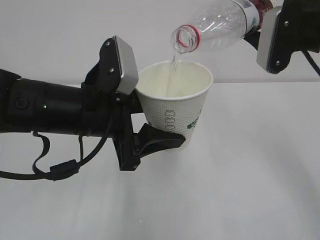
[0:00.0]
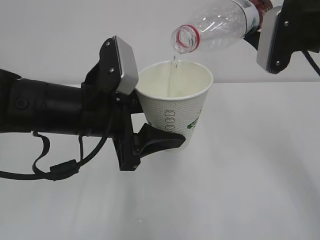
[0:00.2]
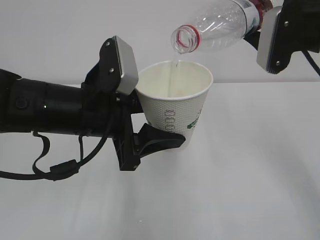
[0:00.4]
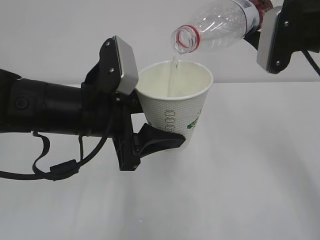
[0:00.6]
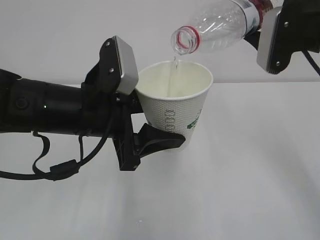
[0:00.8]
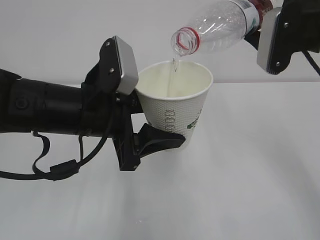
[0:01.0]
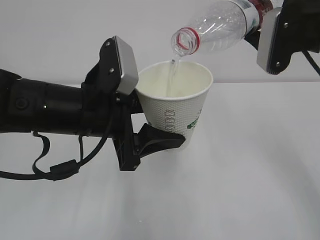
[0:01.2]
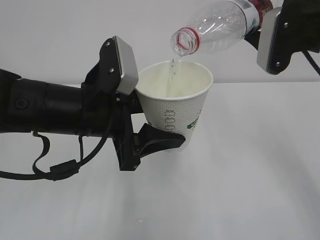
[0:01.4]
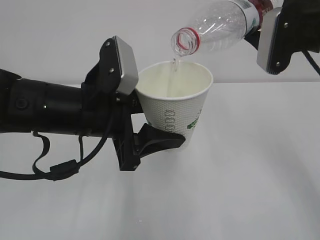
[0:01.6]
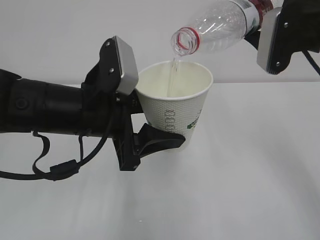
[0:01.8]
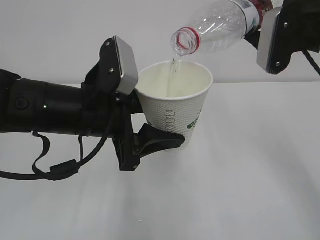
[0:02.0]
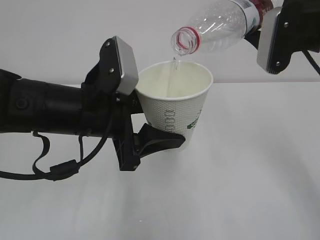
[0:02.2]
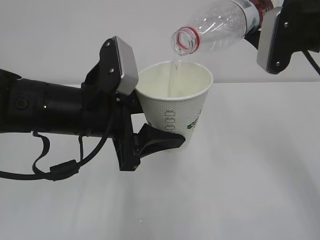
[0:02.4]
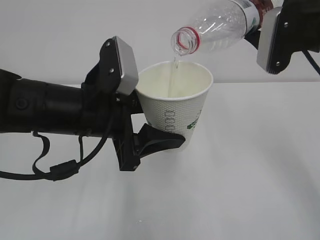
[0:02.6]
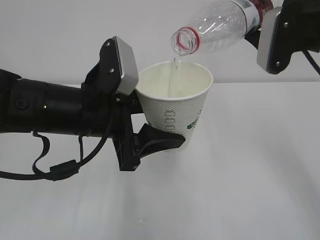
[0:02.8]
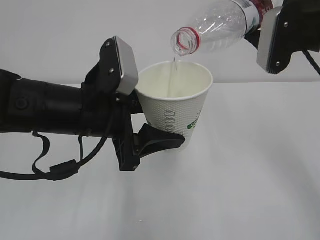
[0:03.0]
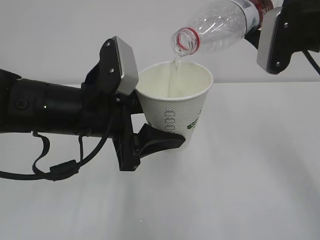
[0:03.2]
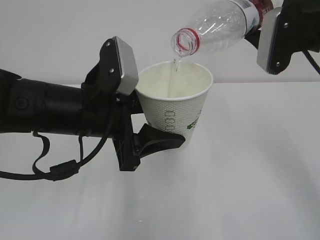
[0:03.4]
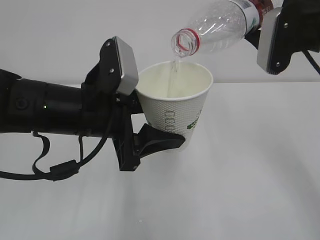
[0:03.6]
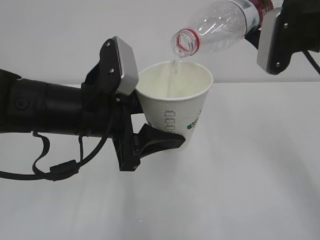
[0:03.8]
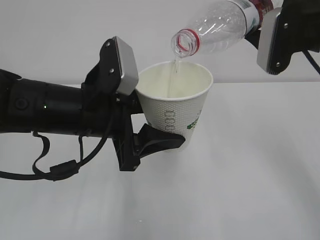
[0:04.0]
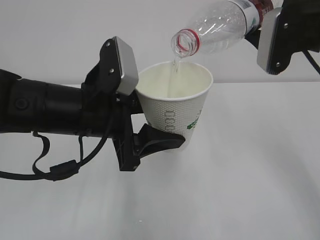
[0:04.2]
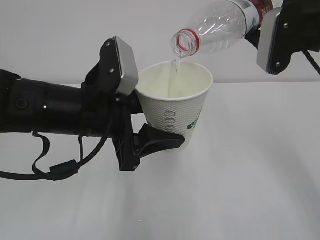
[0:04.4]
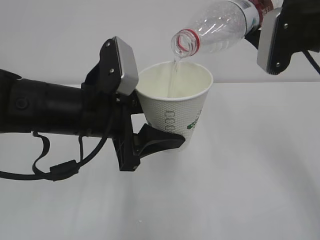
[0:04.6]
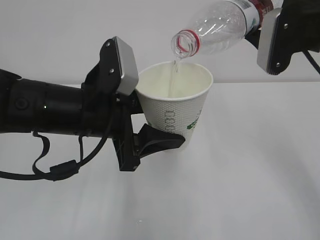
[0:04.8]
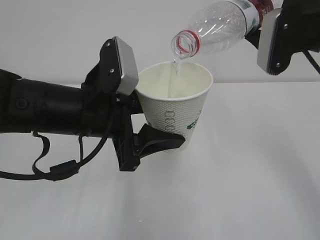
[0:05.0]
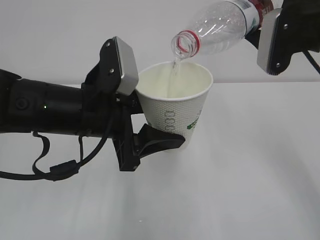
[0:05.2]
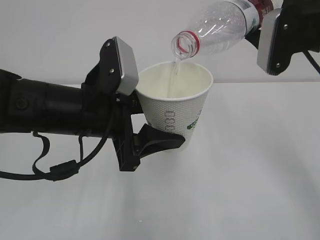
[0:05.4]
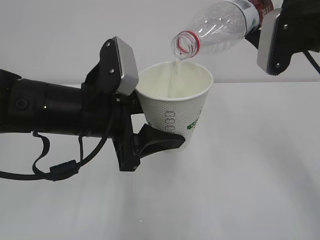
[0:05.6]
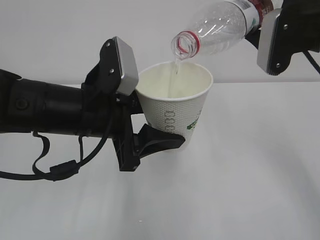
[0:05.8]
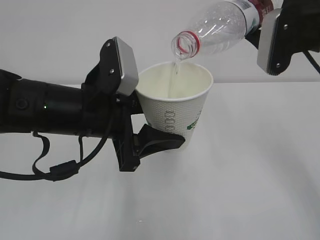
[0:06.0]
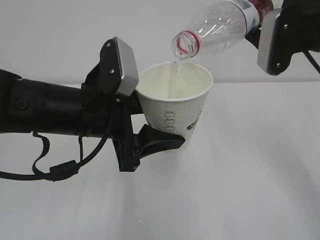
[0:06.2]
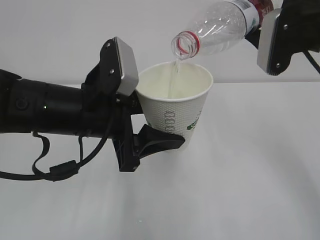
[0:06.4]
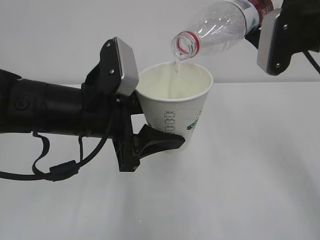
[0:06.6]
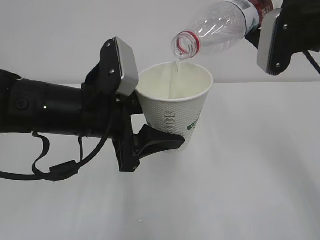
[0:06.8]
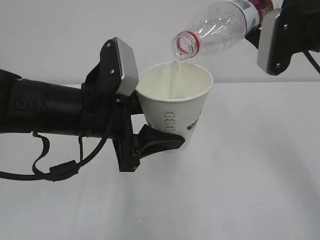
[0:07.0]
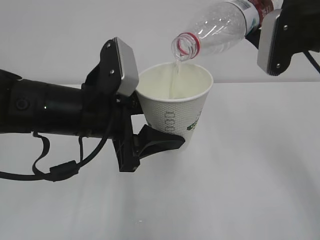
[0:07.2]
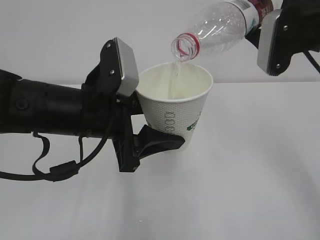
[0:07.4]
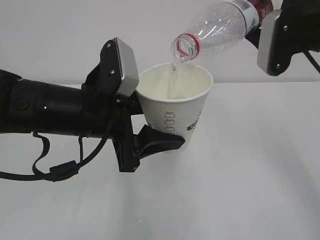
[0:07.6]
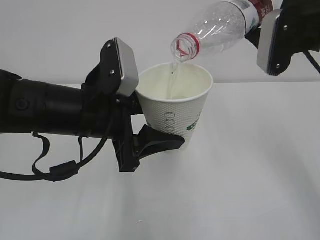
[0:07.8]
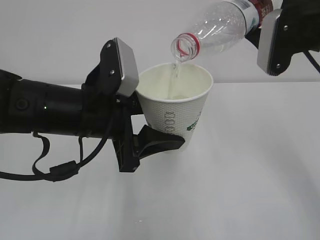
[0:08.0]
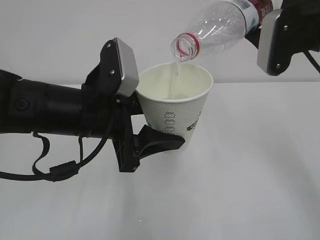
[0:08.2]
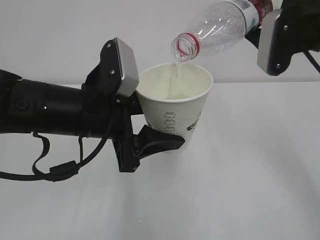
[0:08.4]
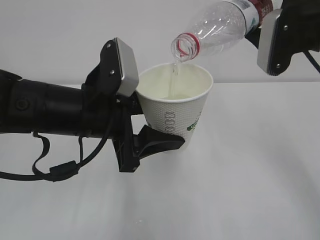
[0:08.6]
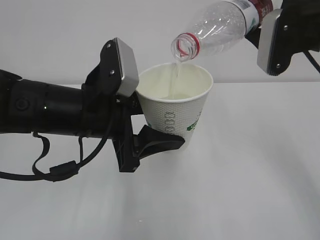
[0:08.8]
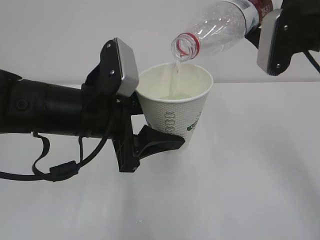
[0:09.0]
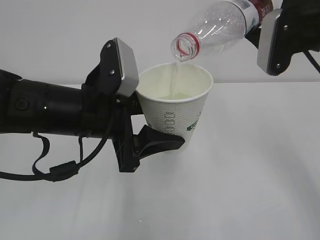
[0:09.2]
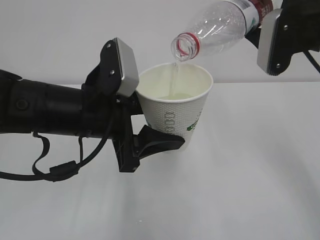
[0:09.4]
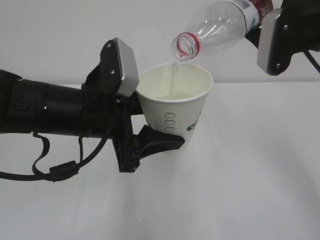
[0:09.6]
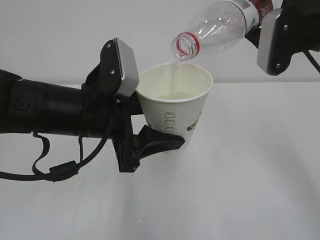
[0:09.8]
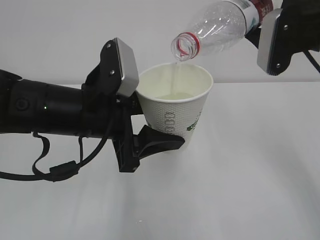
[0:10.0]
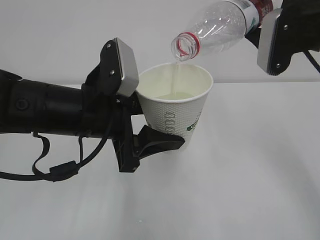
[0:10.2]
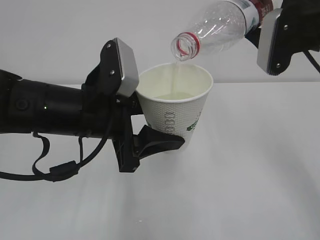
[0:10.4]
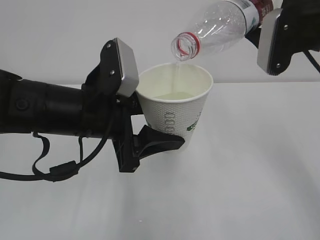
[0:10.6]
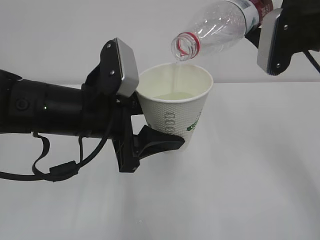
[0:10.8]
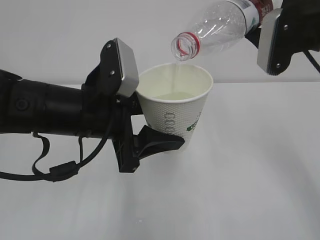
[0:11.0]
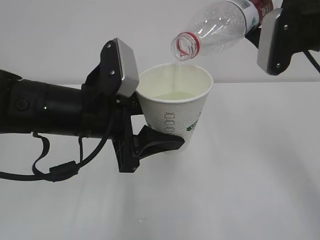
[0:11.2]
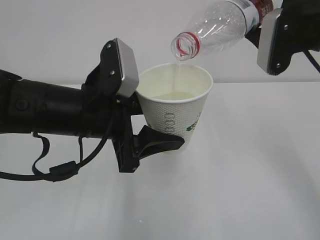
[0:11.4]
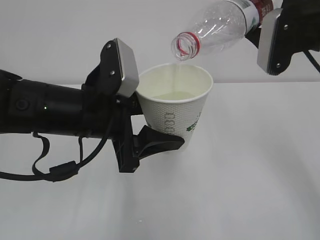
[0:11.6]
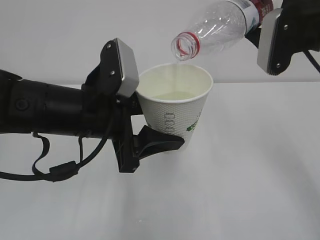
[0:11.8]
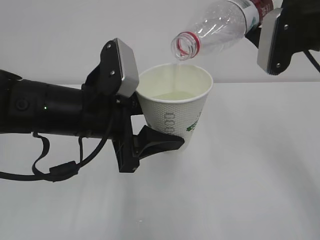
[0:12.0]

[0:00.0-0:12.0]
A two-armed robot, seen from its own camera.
0:00.0 to 0:12.0: The two grippers keep their place.

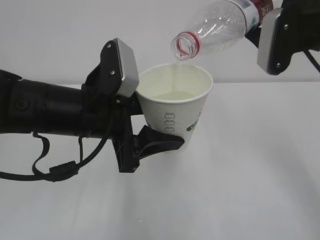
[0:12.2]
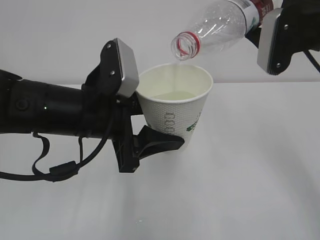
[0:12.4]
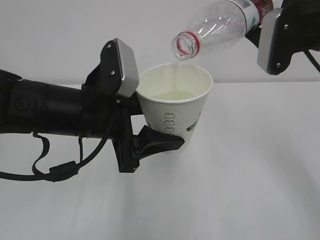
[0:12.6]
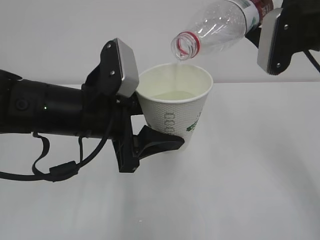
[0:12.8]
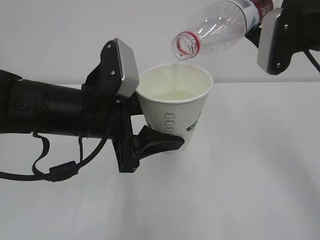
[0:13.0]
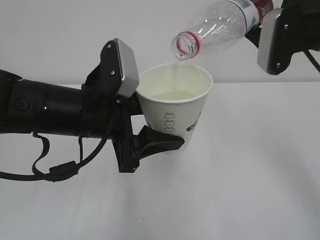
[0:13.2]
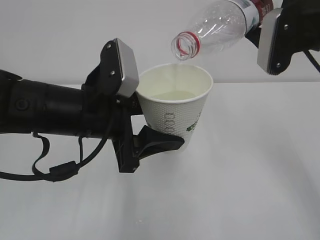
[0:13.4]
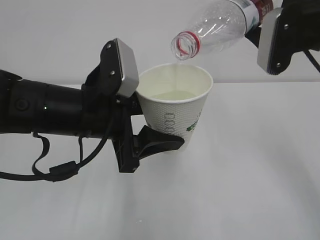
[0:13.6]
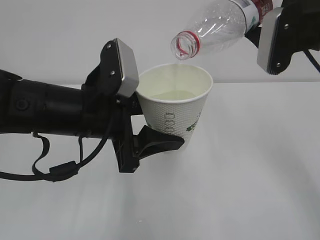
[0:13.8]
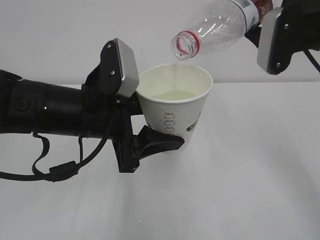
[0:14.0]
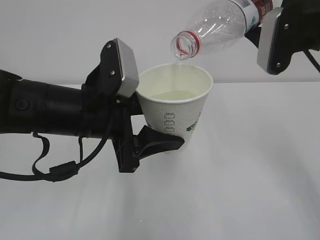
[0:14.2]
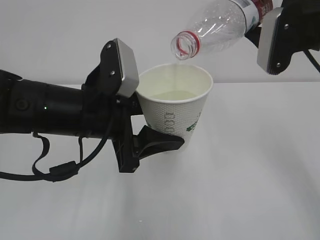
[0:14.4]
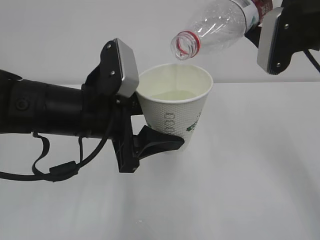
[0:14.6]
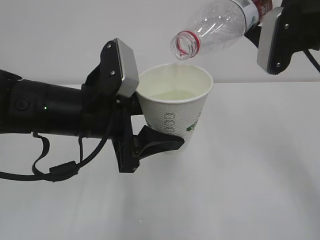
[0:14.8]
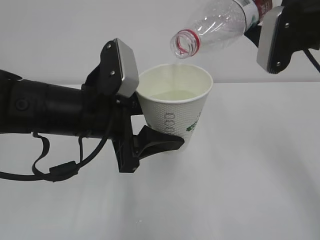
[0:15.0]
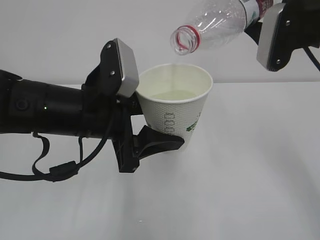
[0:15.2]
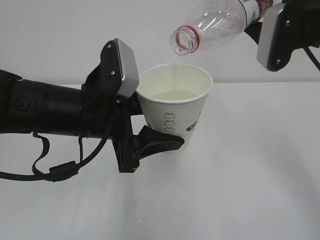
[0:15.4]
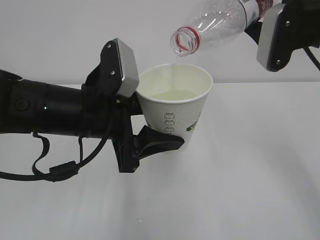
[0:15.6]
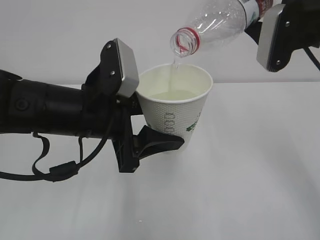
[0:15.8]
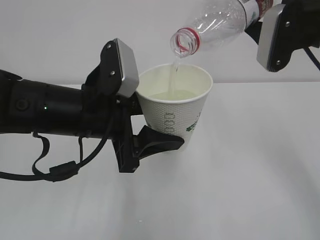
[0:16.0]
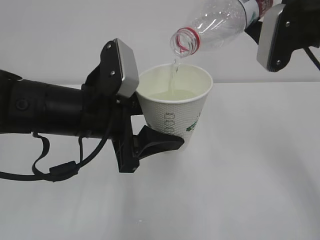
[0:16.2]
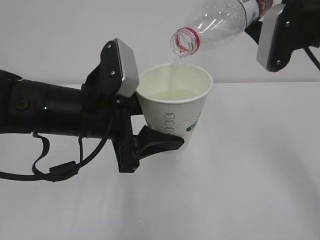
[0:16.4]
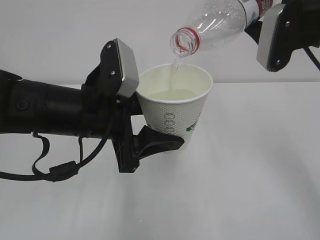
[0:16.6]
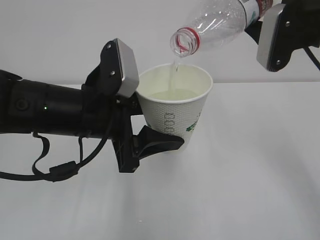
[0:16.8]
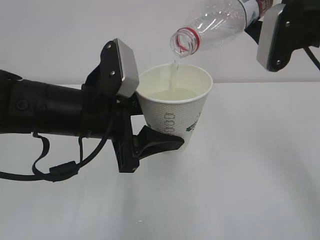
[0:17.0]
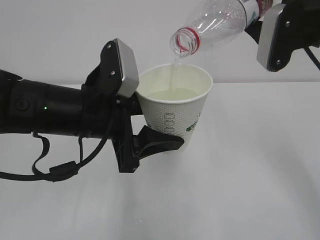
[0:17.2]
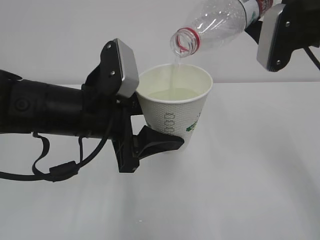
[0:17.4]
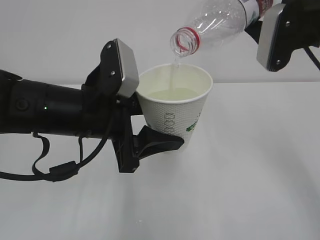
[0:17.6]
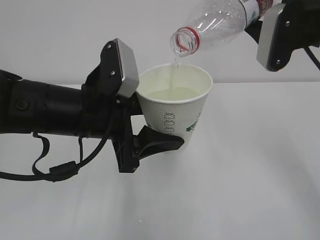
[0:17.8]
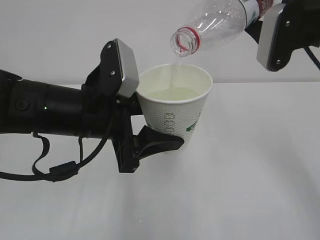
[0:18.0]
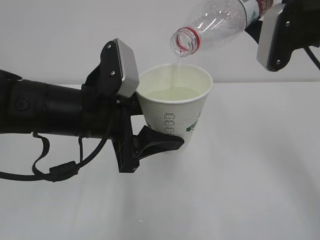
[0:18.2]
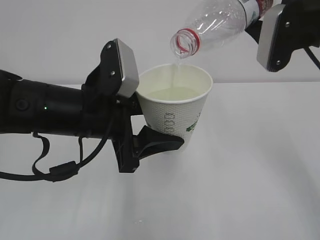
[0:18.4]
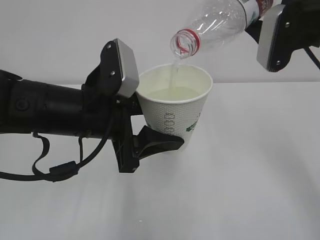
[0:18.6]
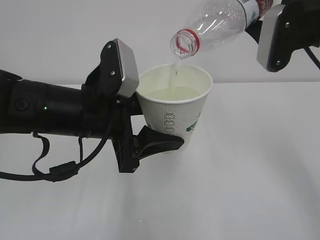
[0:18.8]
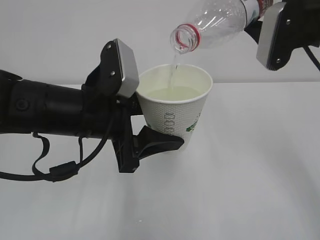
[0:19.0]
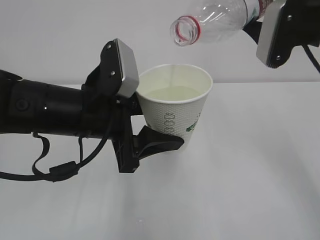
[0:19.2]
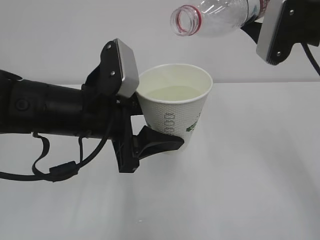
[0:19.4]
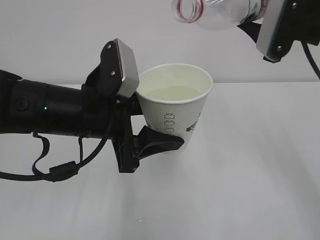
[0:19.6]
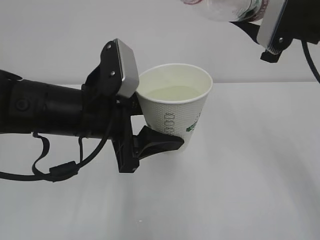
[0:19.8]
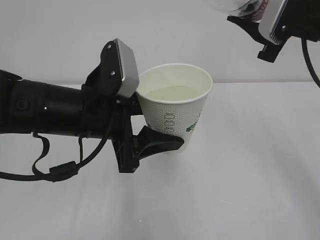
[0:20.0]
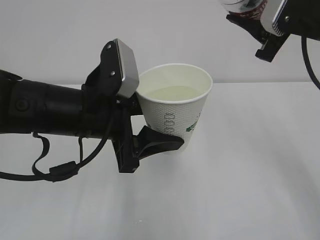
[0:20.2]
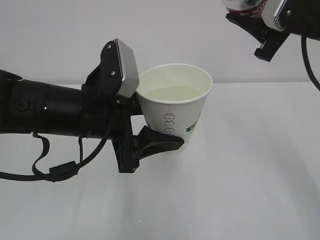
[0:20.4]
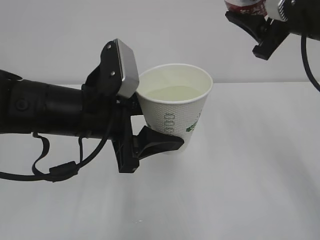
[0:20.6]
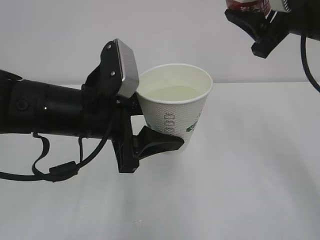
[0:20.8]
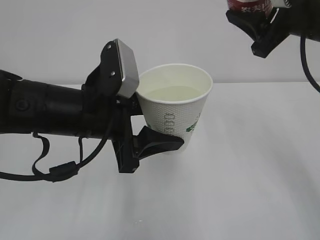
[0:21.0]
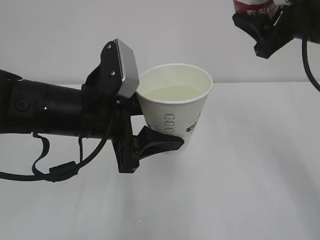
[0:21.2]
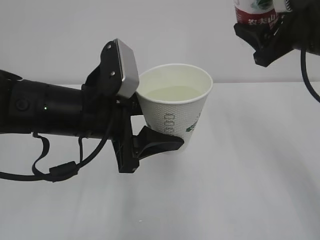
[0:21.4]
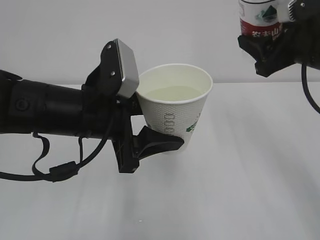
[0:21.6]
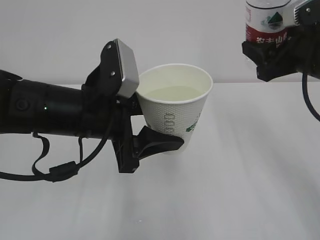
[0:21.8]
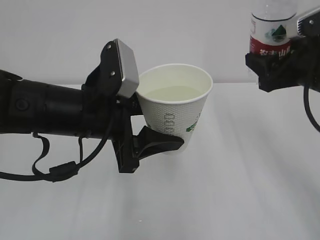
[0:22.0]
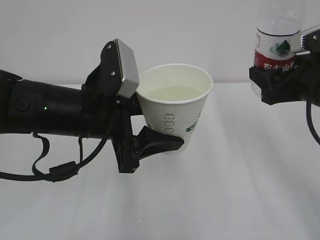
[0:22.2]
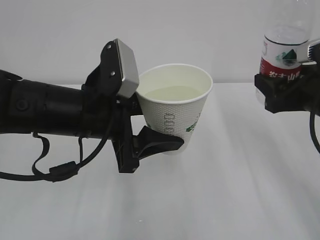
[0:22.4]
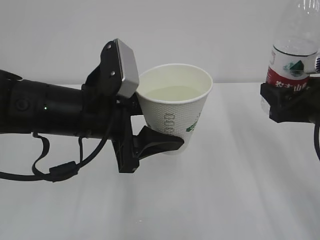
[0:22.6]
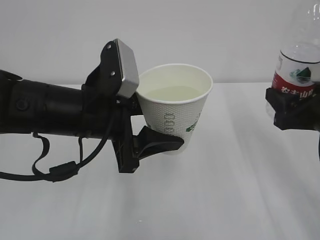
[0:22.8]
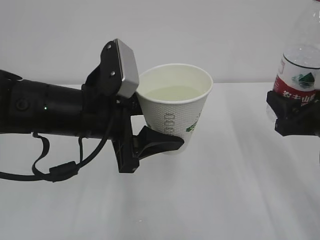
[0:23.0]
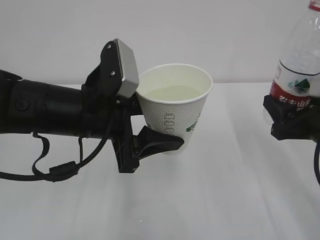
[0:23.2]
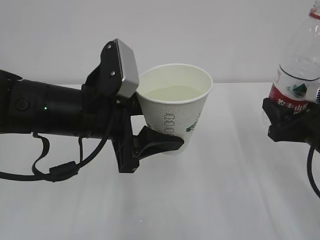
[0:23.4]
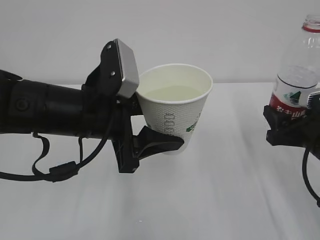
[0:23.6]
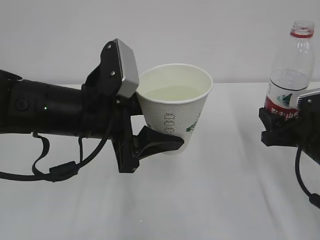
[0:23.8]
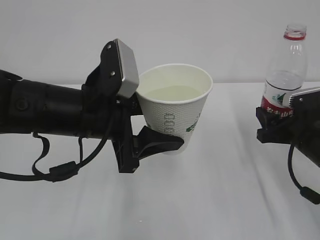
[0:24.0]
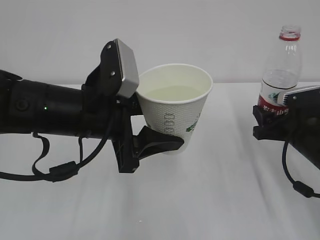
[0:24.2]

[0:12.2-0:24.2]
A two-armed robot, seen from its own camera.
0:12.2 to 0:18.2: Both grippers stay put.
0:18.2 to 0:19.8: The grippers stay close to where they were, moving slightly.
0:21.2 to 0:22.6: The right gripper is displaced downward and backward by approximately 15 cm.
0:22.6 to 0:24.2: The right gripper shifts roughly 10 cm downward.
